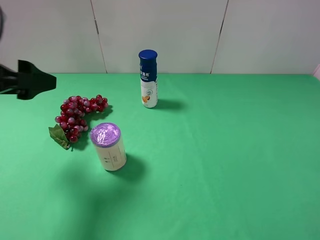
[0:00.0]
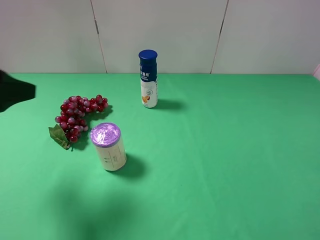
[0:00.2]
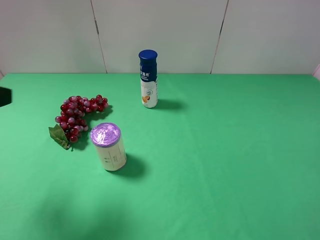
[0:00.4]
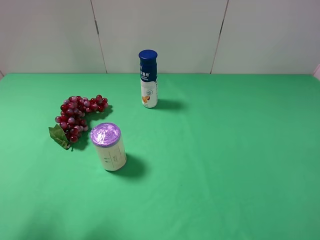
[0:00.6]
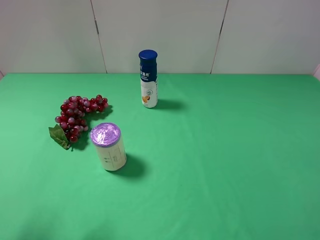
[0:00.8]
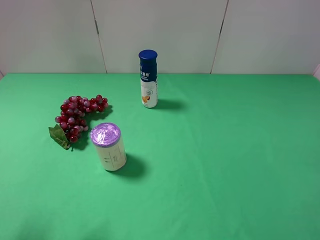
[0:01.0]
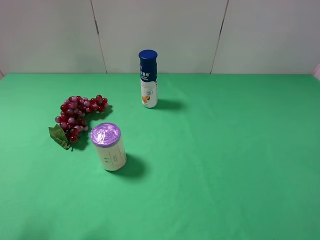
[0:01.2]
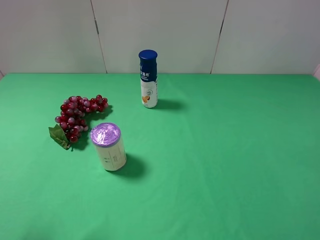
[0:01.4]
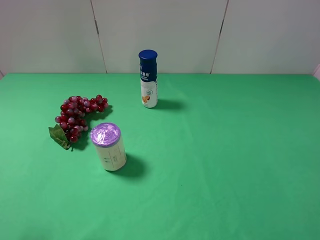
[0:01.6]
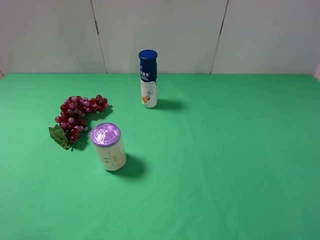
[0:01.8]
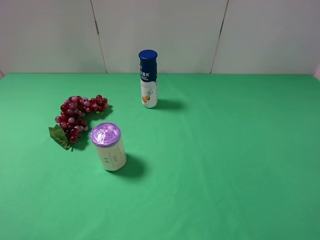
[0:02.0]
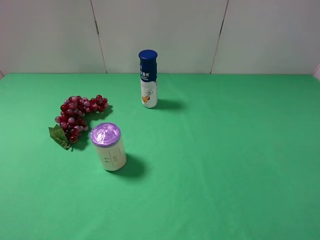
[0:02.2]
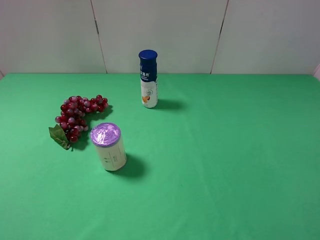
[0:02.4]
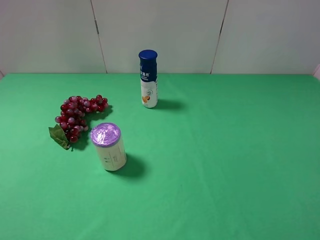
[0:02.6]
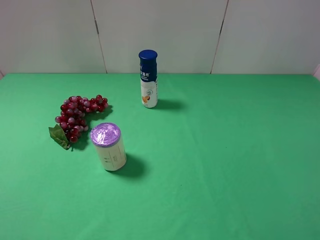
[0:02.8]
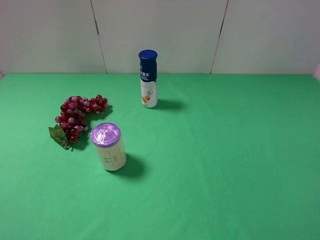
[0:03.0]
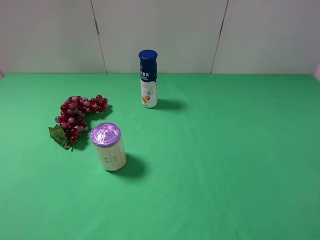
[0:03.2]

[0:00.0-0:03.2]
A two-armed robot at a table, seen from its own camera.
Task of the whole recording: use the right gripper to pick up the item and transfer it from the right gripper to the left gripper.
0:00.0 to 0:01.6: The left gripper is displaced backward by some 15 cm.
